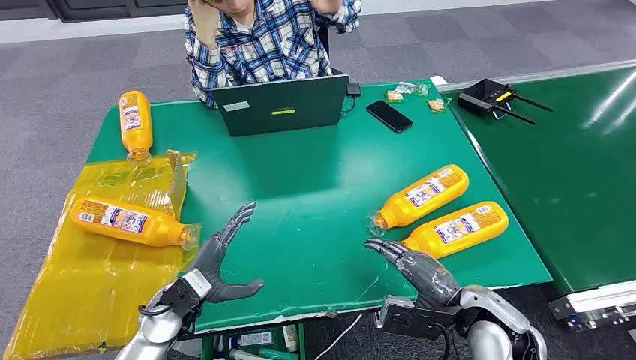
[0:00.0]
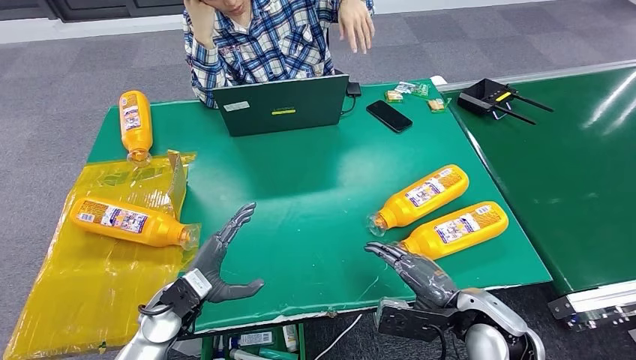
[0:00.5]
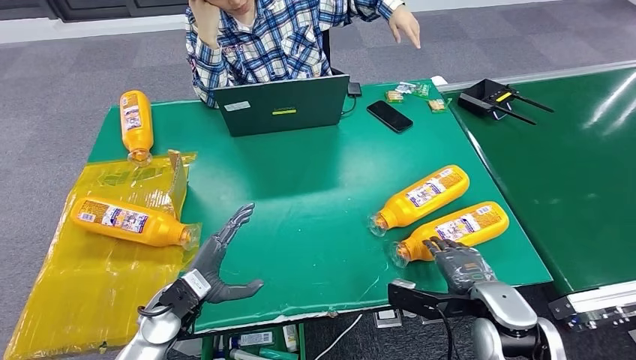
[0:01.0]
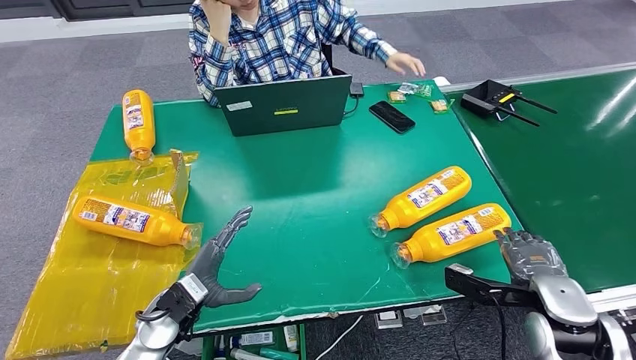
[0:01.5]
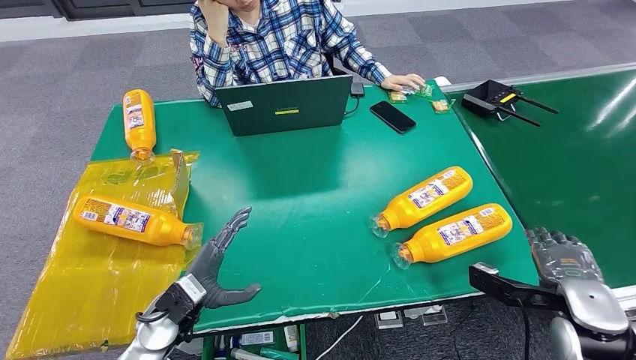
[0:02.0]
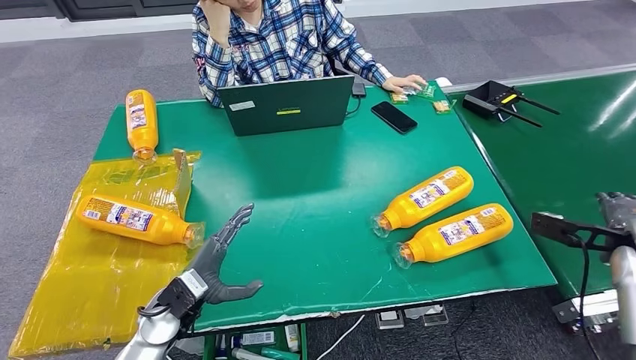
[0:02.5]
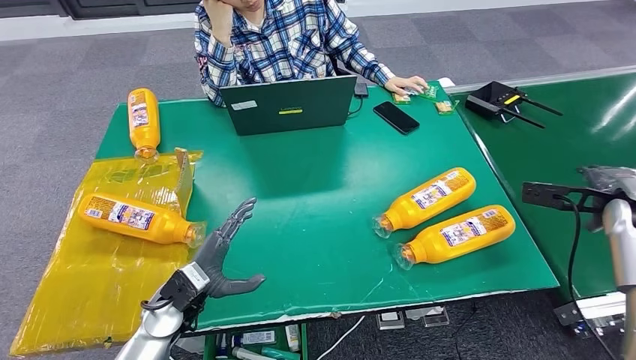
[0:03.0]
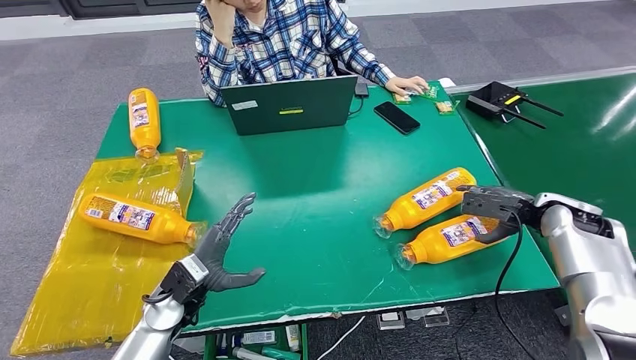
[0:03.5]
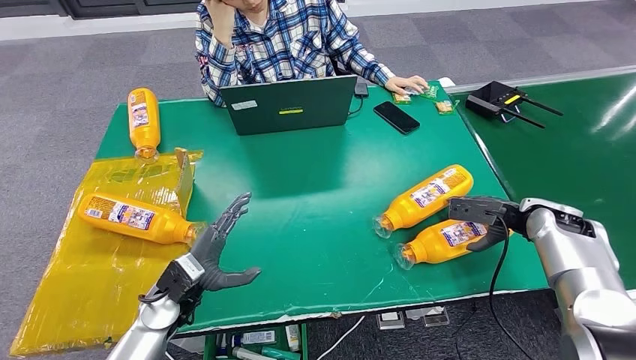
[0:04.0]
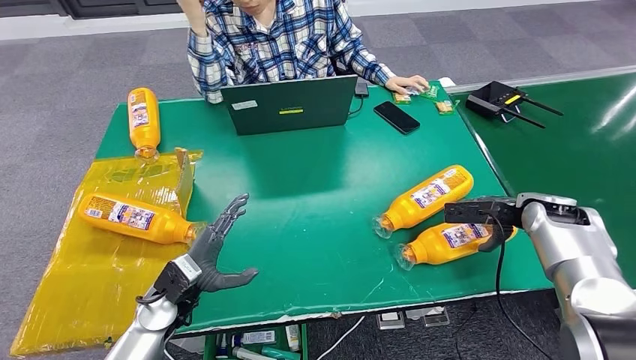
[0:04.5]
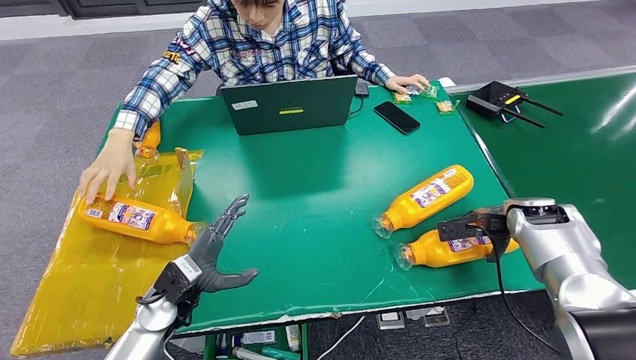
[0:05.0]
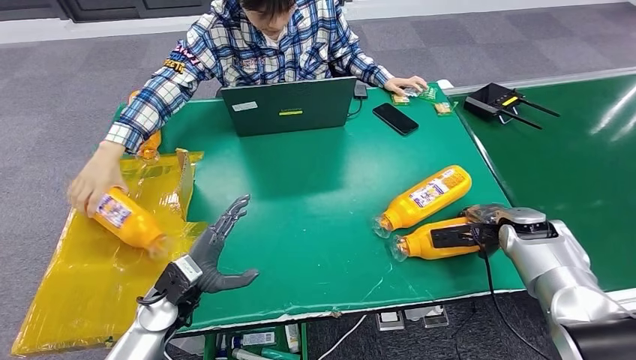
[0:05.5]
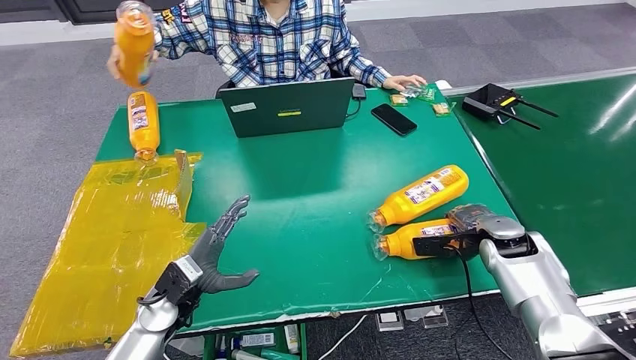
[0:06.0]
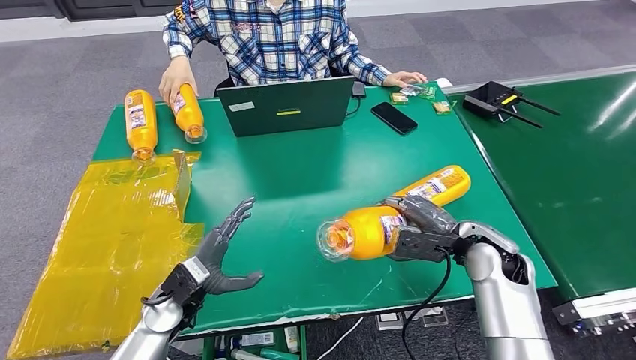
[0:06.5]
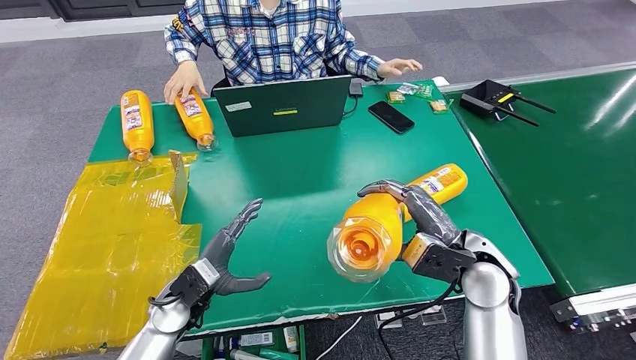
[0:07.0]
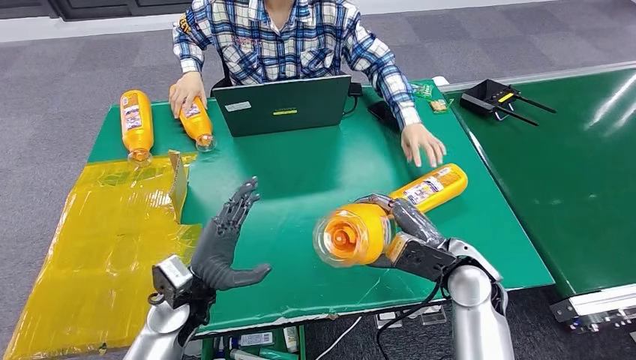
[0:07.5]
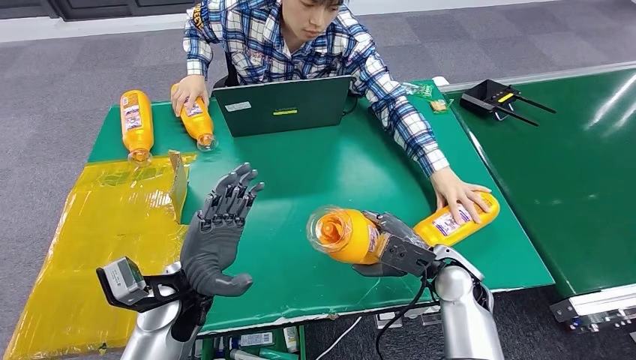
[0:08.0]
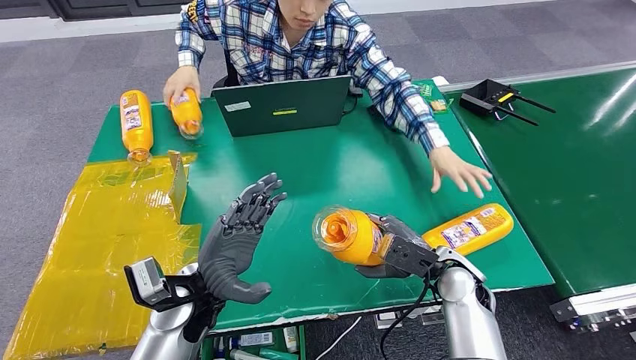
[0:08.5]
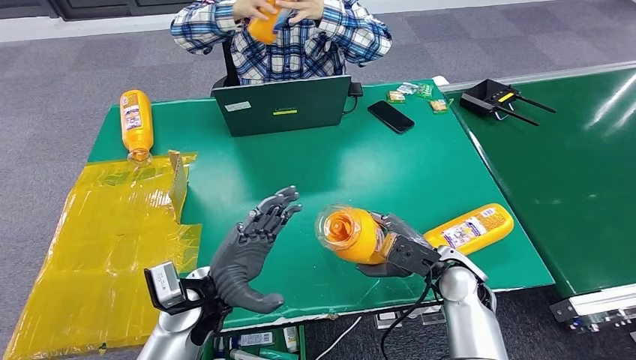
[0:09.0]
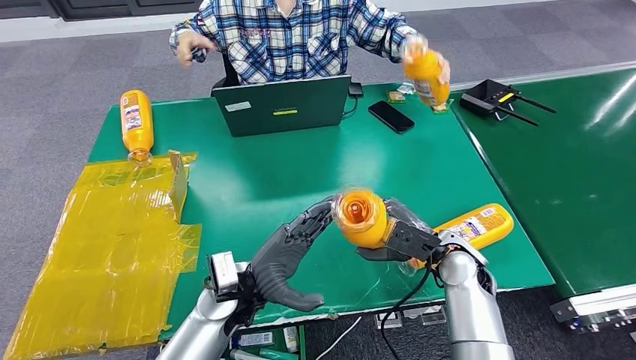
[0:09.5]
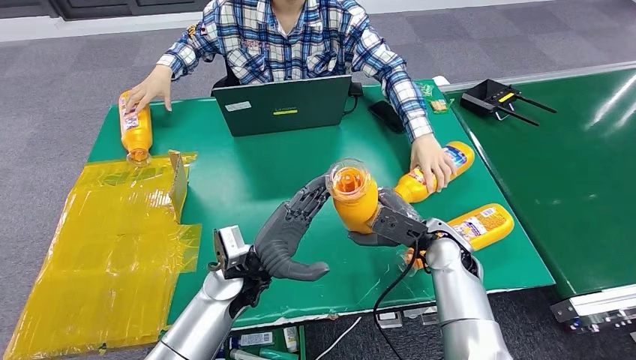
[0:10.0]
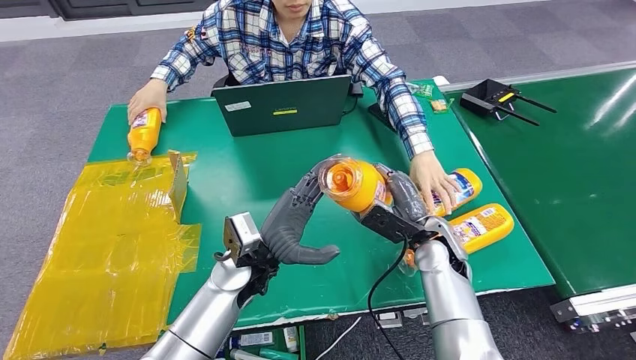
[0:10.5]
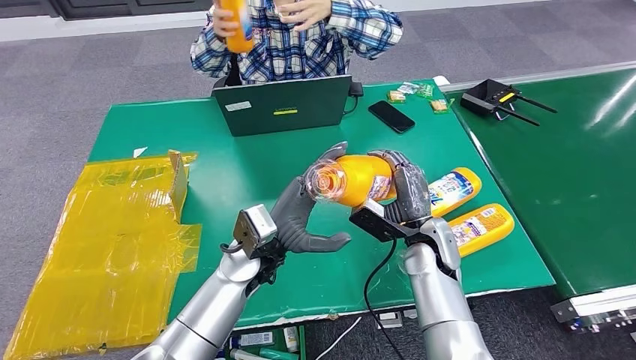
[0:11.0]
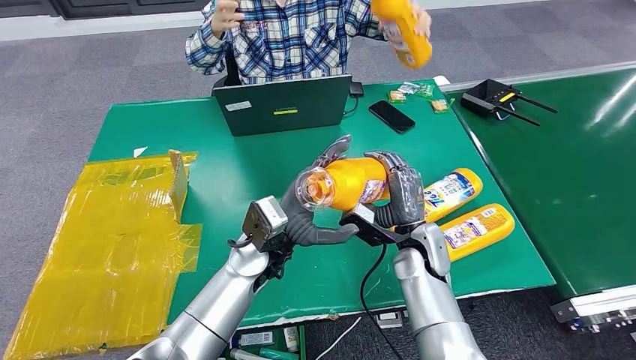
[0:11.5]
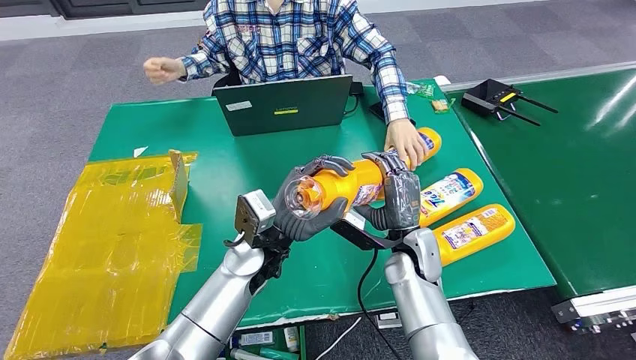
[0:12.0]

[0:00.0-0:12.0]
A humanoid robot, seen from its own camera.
Step, 0:00.0 to 0:06.0: Pick up the bottle from the table.

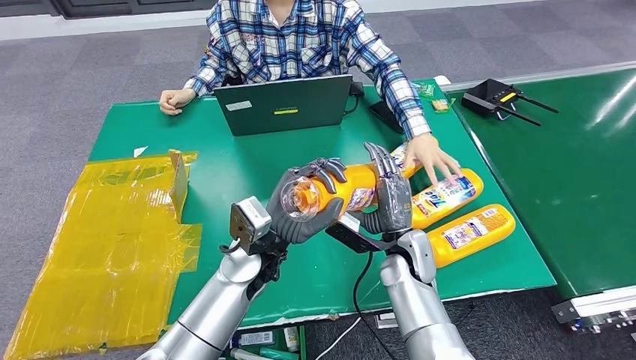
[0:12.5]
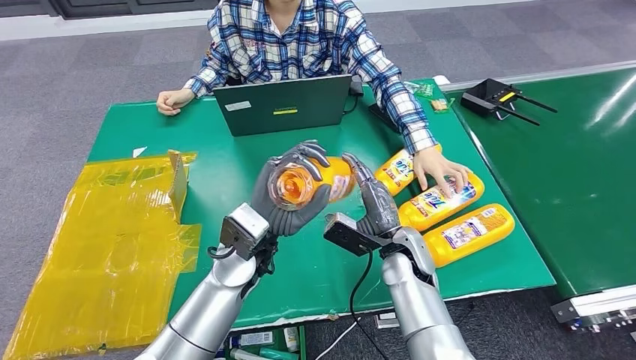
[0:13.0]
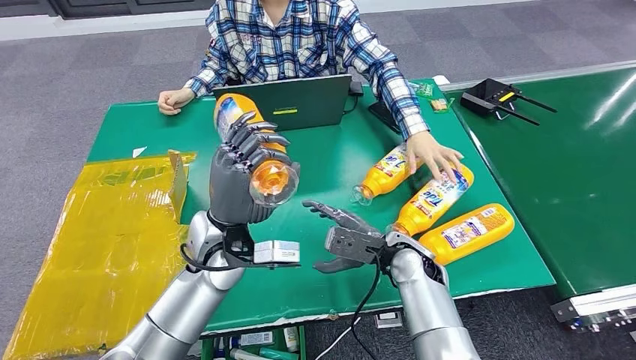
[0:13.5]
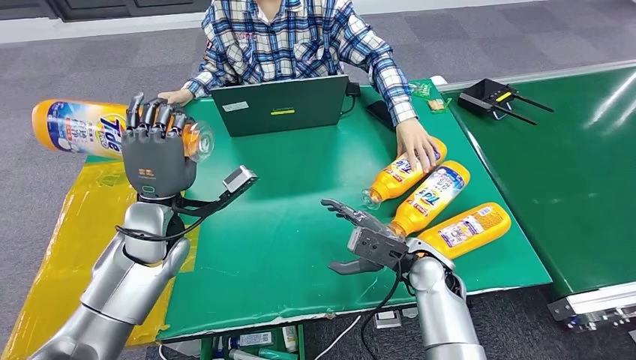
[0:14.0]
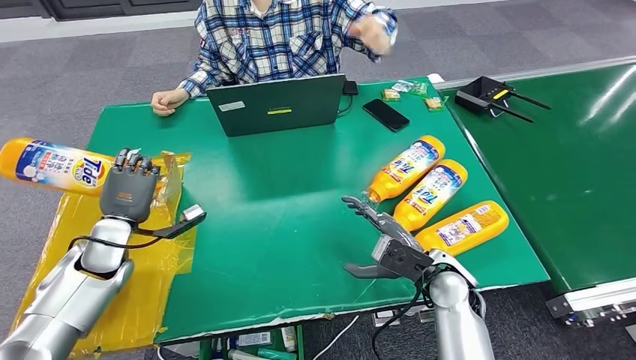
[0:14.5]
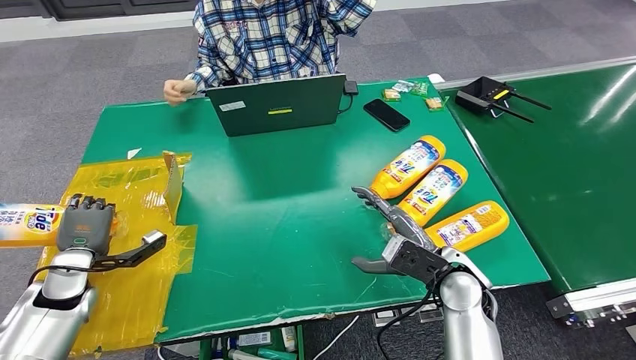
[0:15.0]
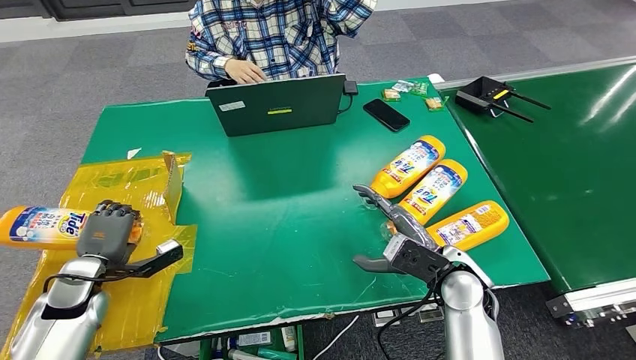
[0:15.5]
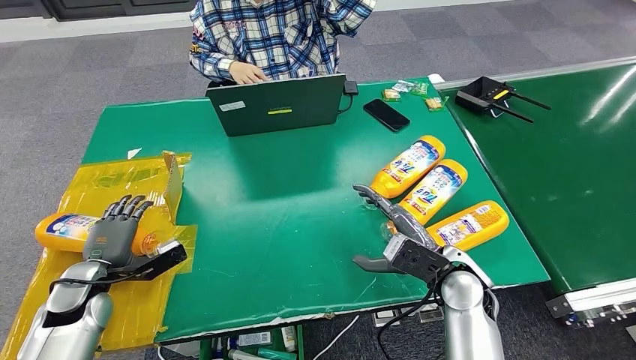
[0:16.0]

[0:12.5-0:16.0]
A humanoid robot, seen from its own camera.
Step, 0:12.5 to 0:16.0: Turn the bottle to the front side.
0:14.5 to 0:16.0: The left hand heads backward, covering approximately 5 cm.
